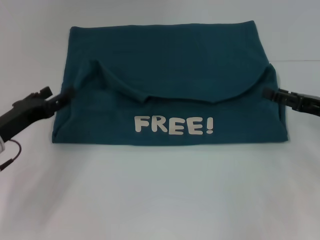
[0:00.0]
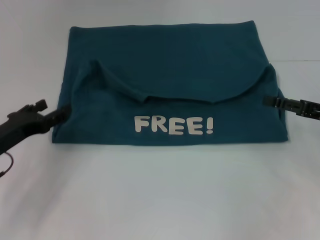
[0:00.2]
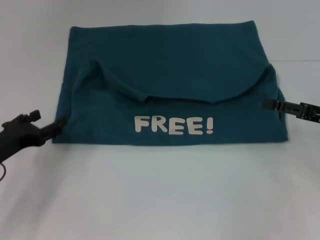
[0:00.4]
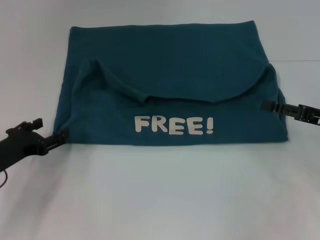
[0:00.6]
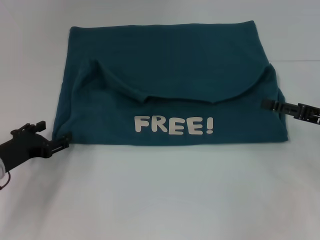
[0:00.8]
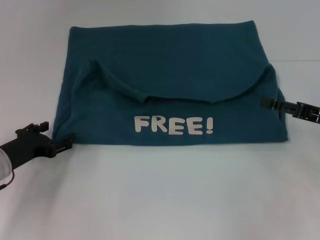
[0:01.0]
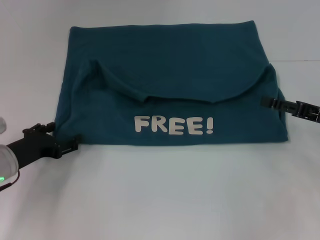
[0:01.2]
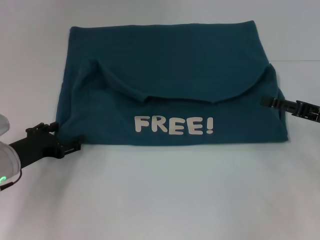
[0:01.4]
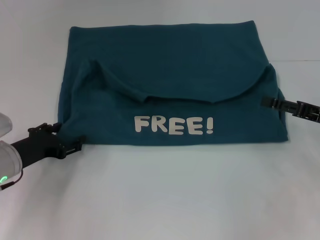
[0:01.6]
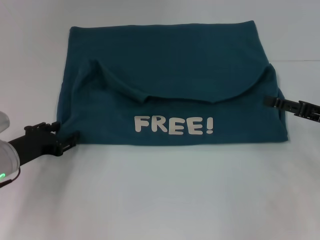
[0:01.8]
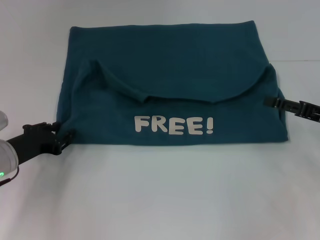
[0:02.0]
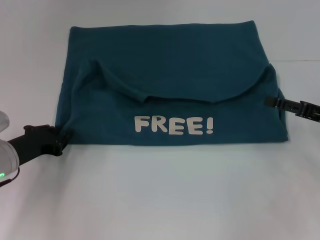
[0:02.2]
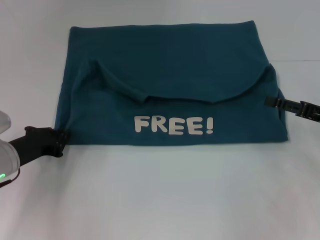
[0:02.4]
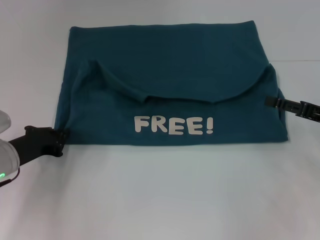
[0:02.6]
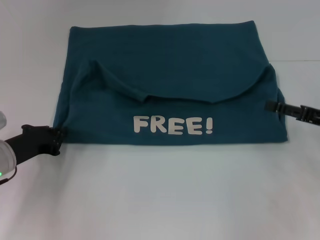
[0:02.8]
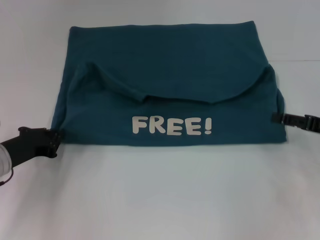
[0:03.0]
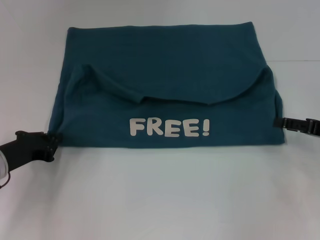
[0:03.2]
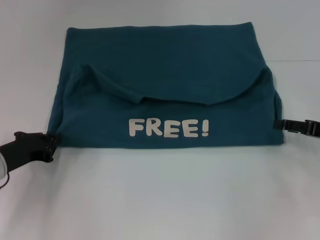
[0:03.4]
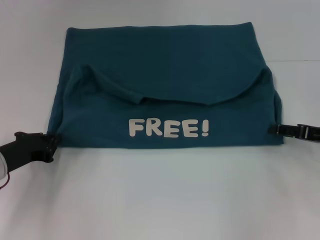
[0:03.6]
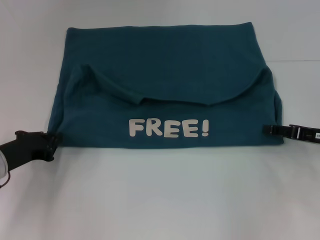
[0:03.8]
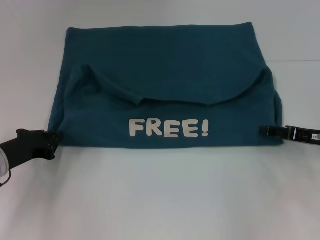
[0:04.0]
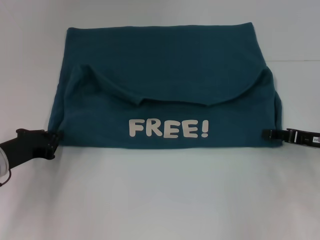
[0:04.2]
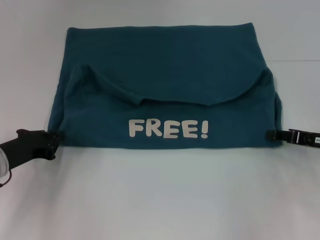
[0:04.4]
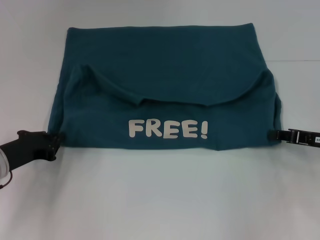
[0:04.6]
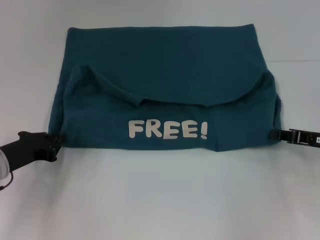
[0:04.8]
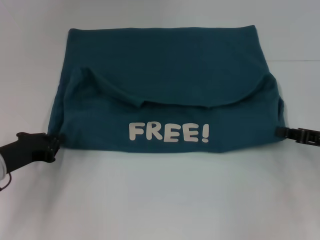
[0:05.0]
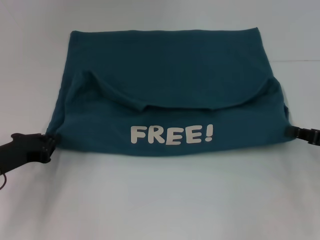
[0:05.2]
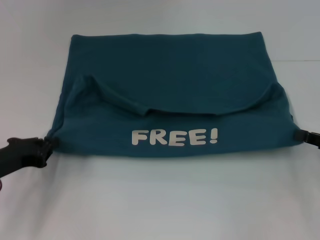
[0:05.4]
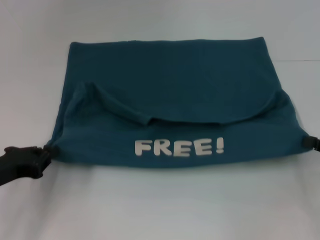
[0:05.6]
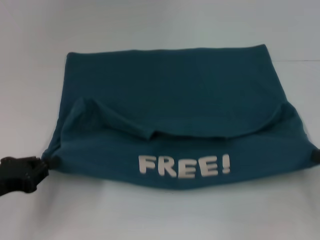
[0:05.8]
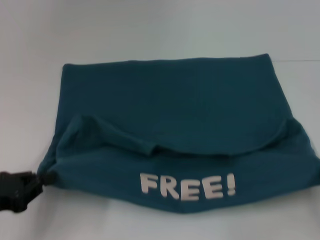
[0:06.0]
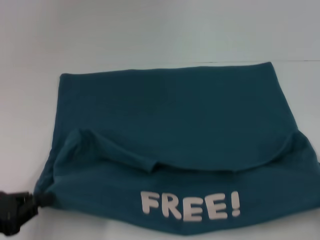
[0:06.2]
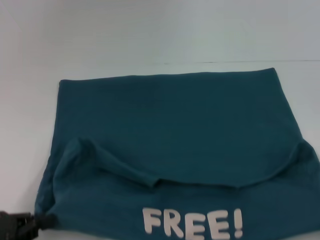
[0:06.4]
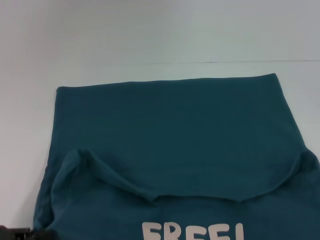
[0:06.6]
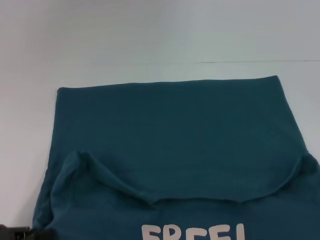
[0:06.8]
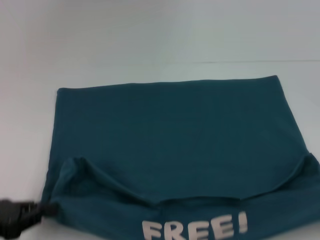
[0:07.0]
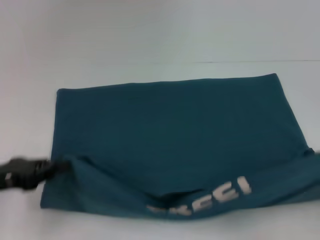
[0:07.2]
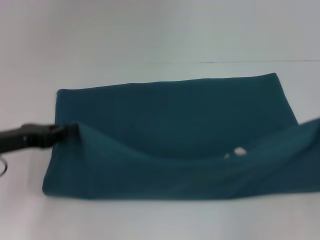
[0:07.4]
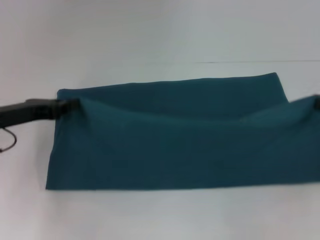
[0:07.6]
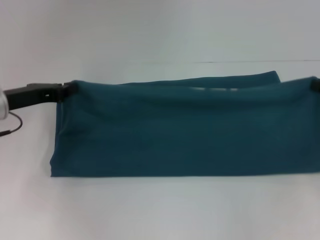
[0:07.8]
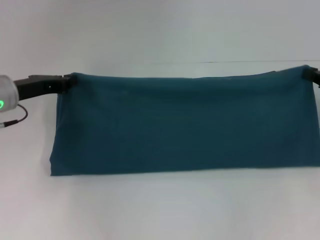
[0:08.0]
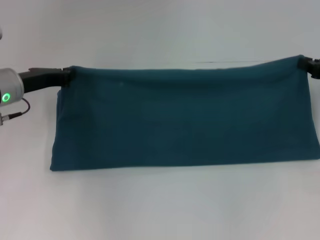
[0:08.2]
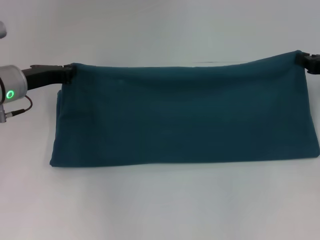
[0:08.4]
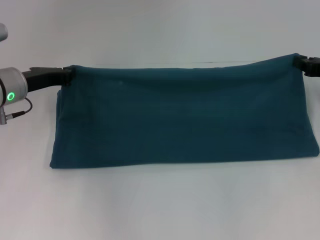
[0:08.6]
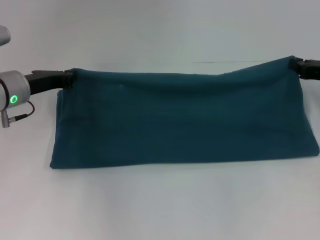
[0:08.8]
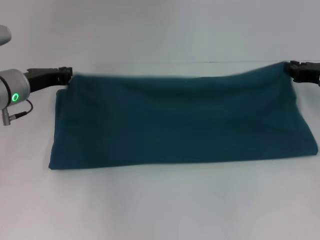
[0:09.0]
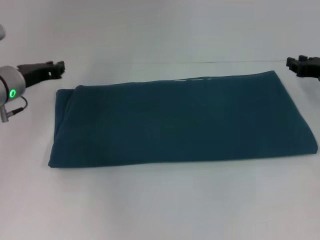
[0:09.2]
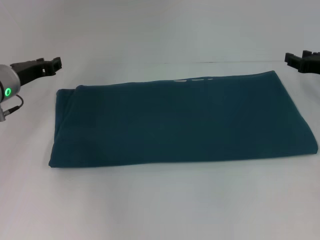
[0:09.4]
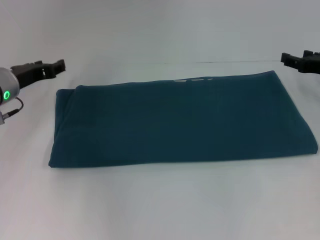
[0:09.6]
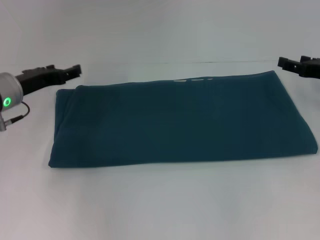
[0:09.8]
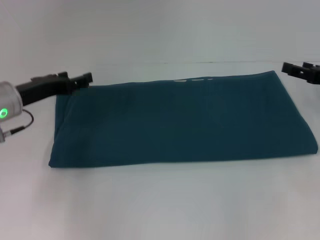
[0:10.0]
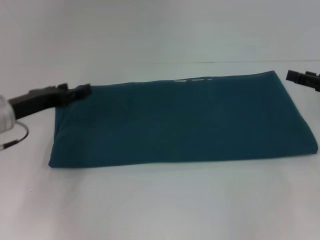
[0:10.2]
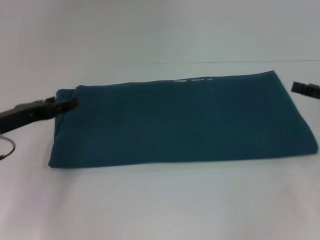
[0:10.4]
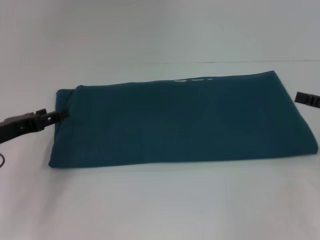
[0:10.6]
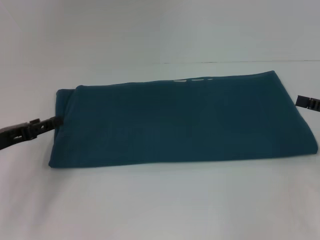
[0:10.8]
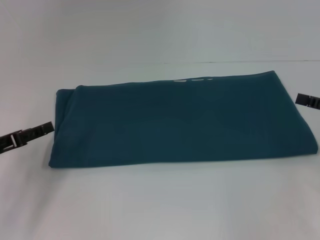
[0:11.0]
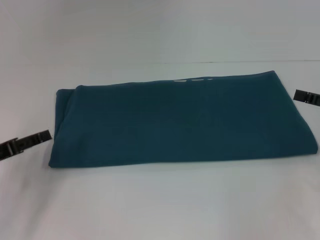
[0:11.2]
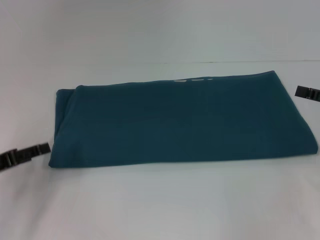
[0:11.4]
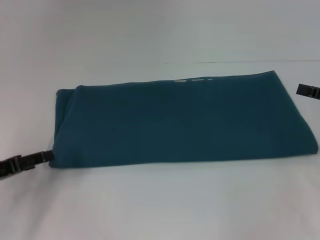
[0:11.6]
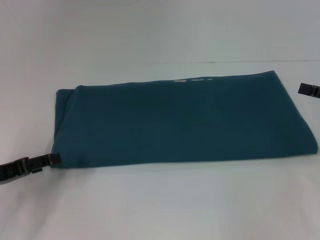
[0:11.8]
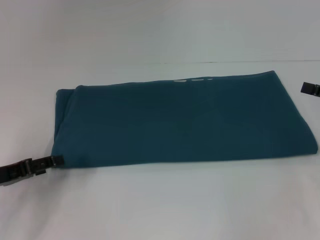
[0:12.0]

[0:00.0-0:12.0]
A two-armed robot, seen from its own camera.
Step, 0:00.0 to 0:06.4: Pull the clothes with your left hand.
Step, 0:00.0 to 0:06.4: Pull the clothes with your right hand.
Step, 0:06.6 to 0:10.2: Fold the clothes to the right.
0:01.6 to 0:03.0: The left gripper closes.
0:03.0 to 0:04.4: The grippers move only a little.
0:04.4 to 0:06.0: The left gripper moves backward, about 10 cm; the right gripper heads backward and to the right, covering about 15 cm, and closes its fingers.
0:06.0 to 0:07.6: The two grippers go some 10 cm forward.
0:07.6 to 0:09.0: The left gripper shifts approximately 5 cm forward. The right gripper moves forward and to the left, approximately 10 cm.
0:09.0 to 0:10.4: The two grippers go approximately 10 cm backward. The left gripper opens. Meanwhile the right gripper opens its fingers.
0:10.4 to 0:12.0: The left gripper goes roughly 5 cm backward.

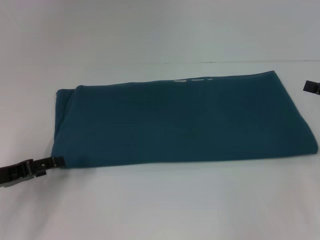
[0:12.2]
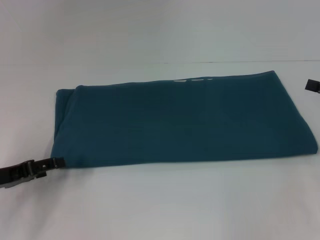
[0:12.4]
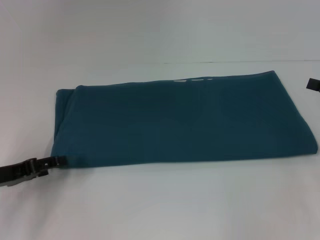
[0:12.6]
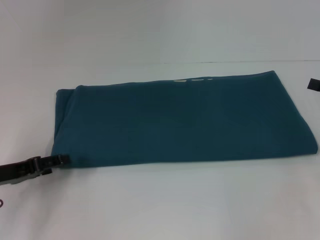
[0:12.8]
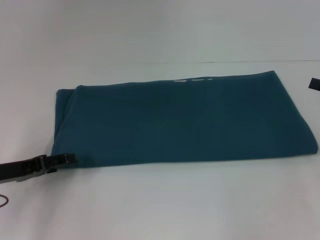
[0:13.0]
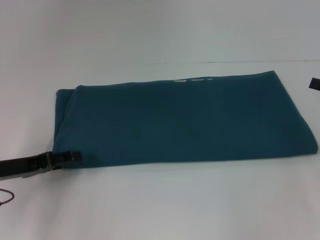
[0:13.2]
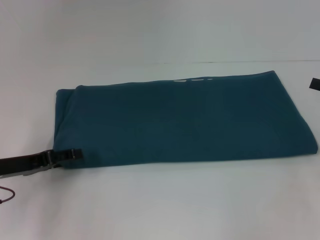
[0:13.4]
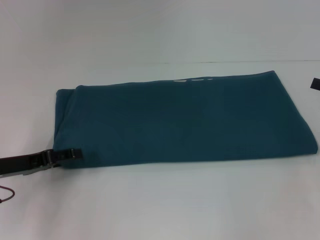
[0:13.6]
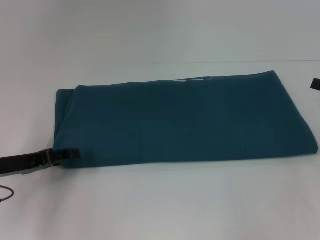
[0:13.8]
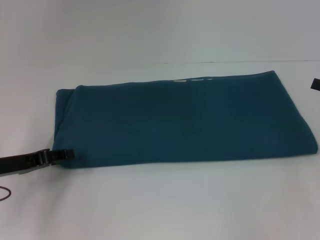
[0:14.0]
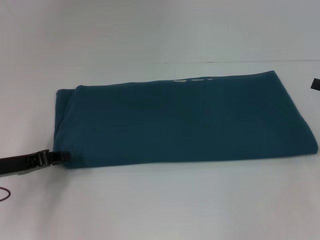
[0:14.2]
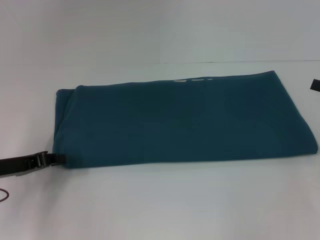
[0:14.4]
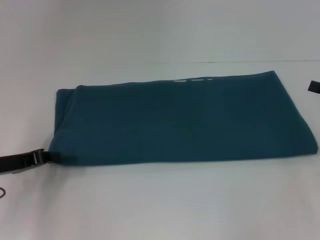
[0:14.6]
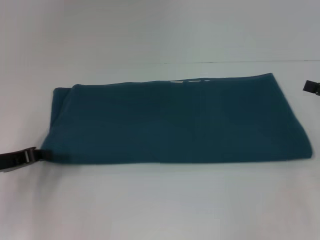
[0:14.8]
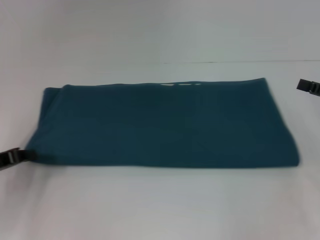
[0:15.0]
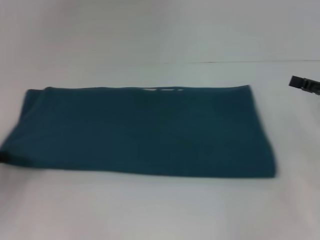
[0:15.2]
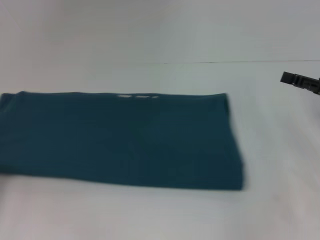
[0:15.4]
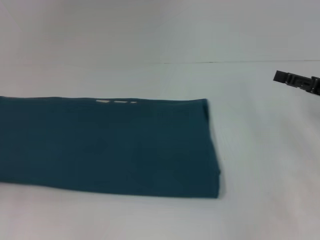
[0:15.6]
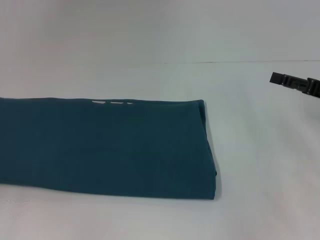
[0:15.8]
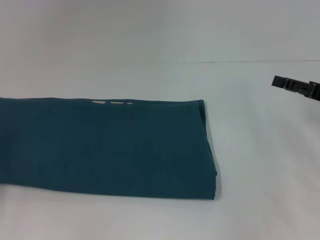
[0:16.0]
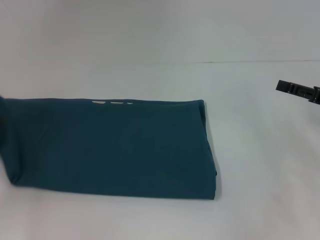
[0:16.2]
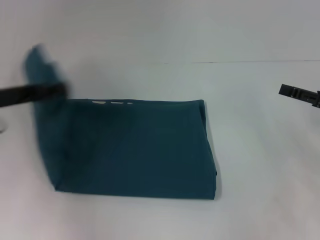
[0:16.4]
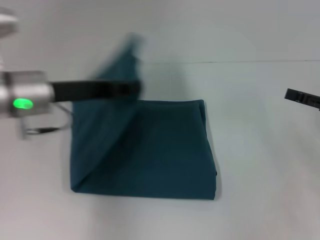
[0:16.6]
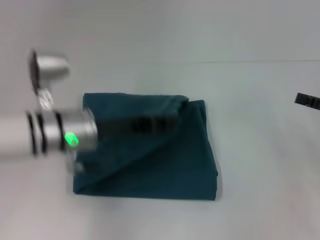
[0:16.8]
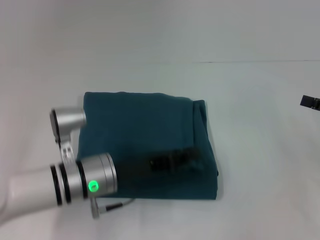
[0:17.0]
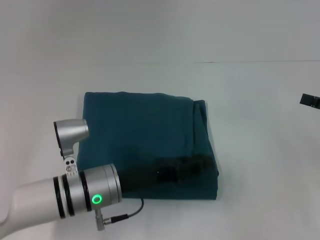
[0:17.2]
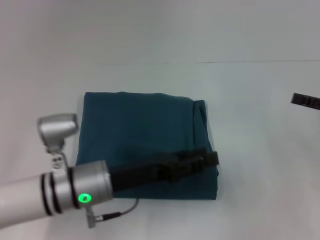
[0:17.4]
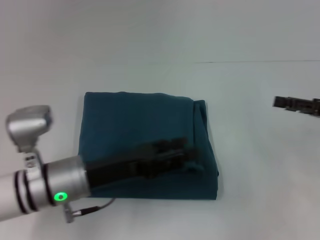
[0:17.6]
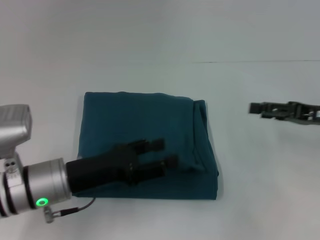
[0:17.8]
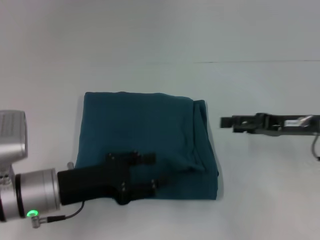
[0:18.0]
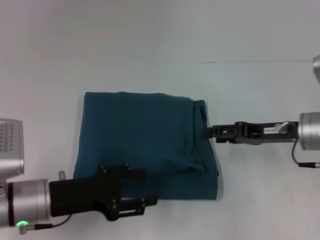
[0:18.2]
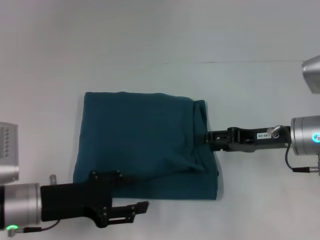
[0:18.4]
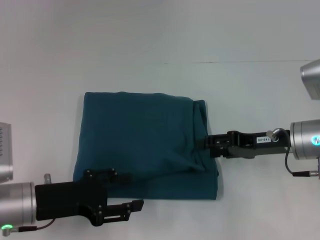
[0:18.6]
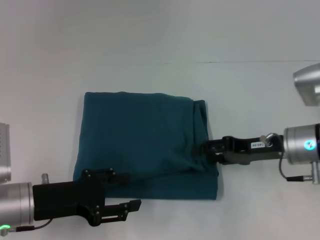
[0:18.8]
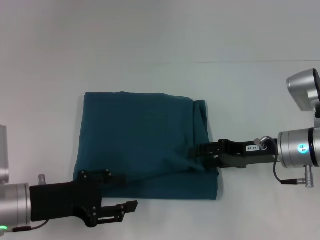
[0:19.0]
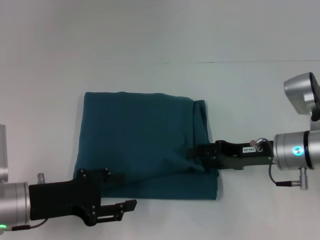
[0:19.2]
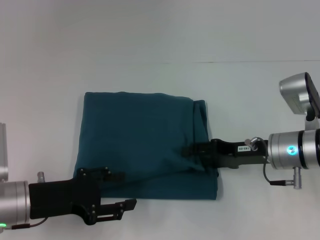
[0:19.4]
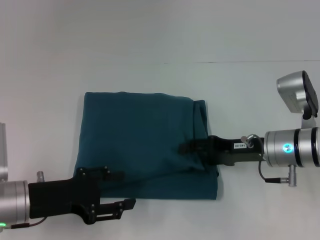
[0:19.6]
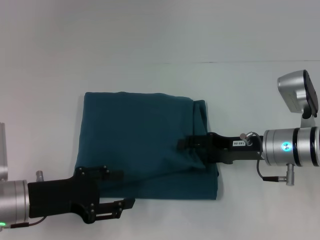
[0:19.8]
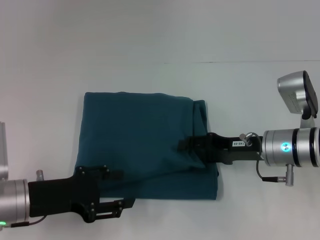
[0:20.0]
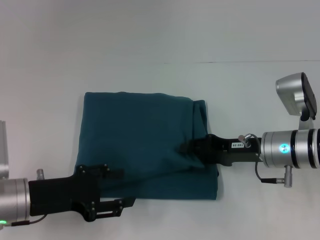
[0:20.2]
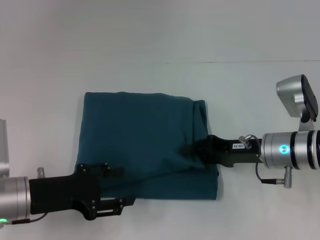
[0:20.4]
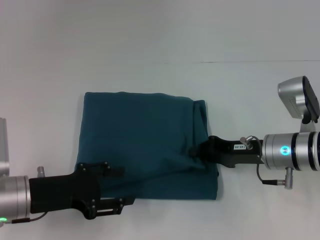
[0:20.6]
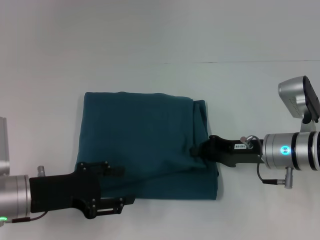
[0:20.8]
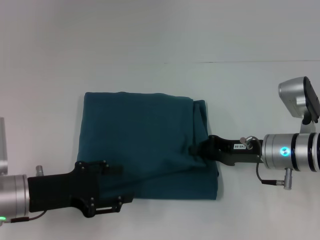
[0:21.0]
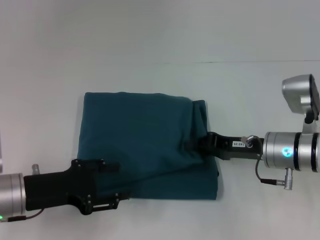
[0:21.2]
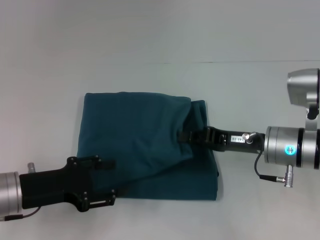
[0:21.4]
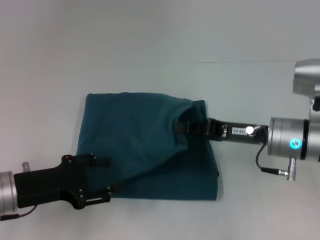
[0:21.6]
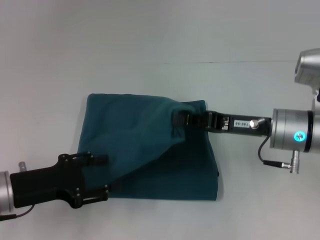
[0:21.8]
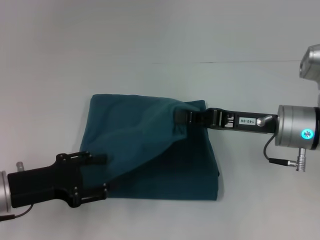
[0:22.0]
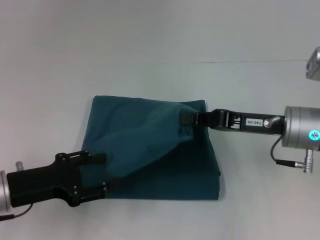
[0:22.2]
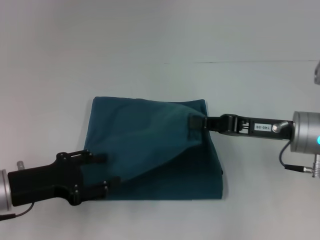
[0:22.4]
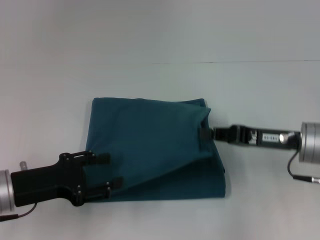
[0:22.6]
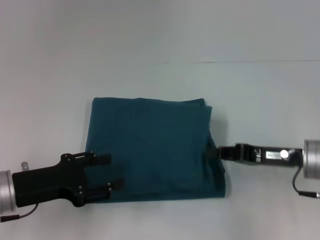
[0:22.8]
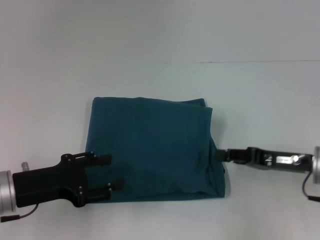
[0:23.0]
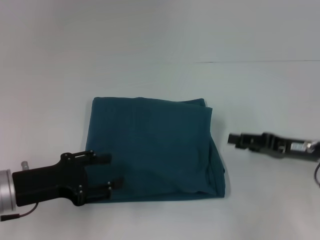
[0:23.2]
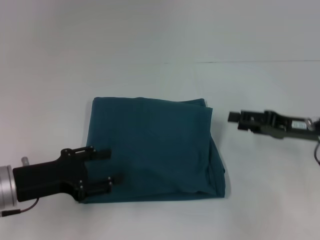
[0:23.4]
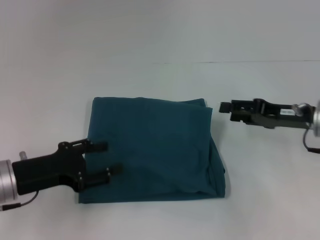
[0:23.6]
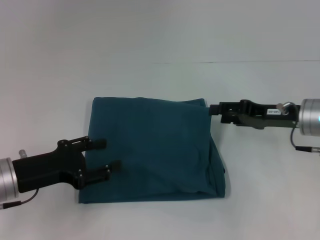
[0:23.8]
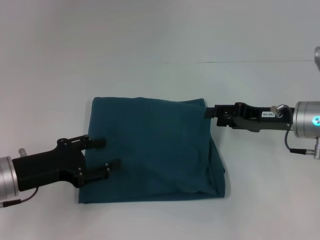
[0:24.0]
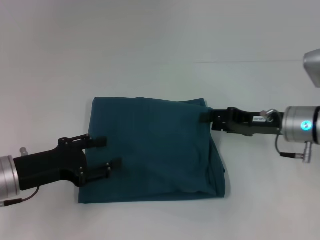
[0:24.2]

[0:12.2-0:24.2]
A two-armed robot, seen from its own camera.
Step, 0:12.2 to 0:17.6: Fold the clothes to the left.
0:12.2 to 0:13.8: The grippers make only small movements.
0:13.8 to 0:15.2: The left gripper heads to the left, covering roughly 5 cm, and closes up.
0:15.2 to 0:16.6: The left gripper goes about 20 cm to the right, upward and forward.
0:16.6 to 0:18.2: The left gripper is displaced downward and backward by roughly 15 cm, and opens its fingers; the right gripper travels to the left by approximately 10 cm.
0:18.2 to 0:19.8: The right gripper ends up roughly 5 cm from where it was.
0:19.8 to 0:21.2: The right gripper closes.
0:21.2 to 0:22.6: The right gripper ends up approximately 5 cm from where it was.
0:22.6 to 0:24.2: The right gripper opens up.
